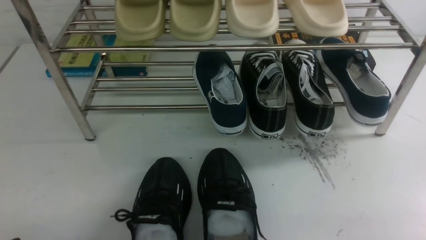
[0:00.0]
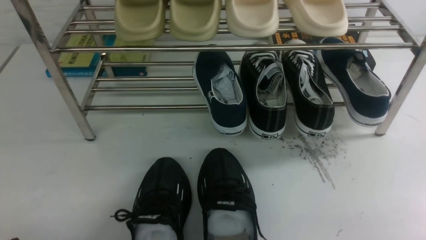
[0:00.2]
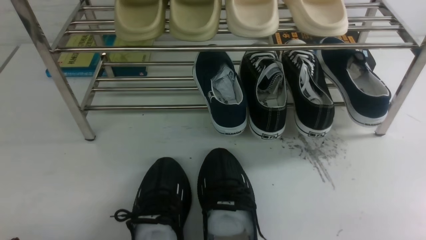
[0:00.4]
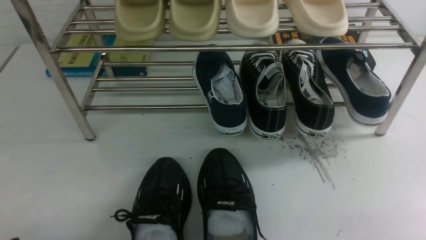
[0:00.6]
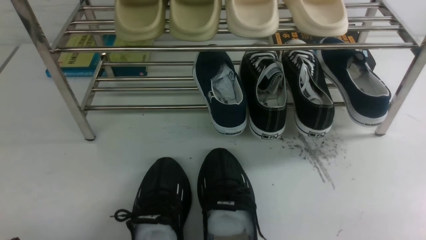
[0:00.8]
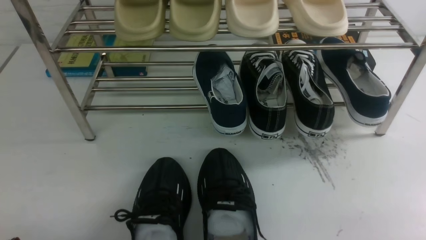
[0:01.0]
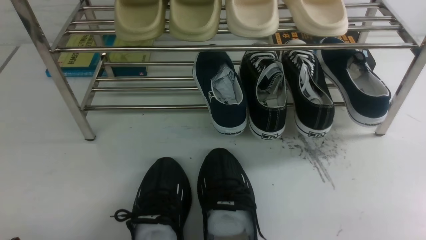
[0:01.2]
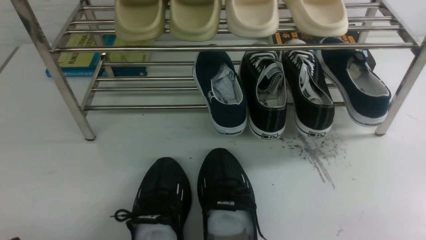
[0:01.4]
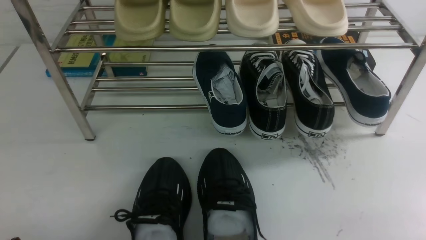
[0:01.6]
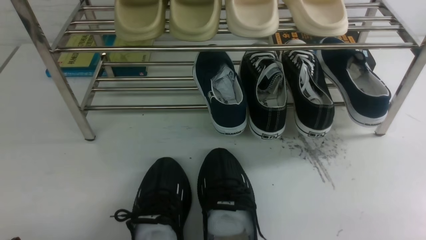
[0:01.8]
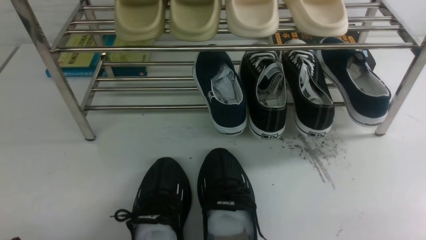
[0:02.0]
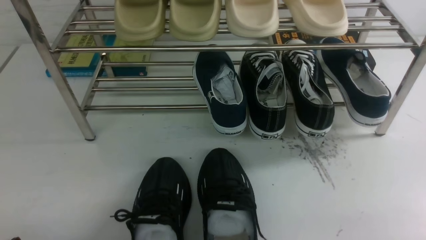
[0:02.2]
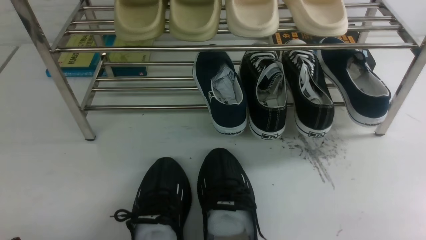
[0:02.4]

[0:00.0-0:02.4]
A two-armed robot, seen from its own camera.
0:00.0 to 0:02.4: Neither gripper changes place.
